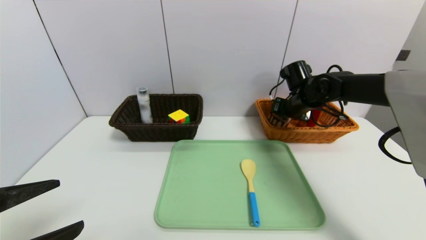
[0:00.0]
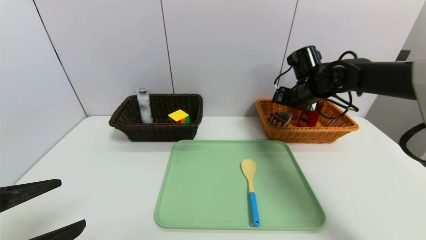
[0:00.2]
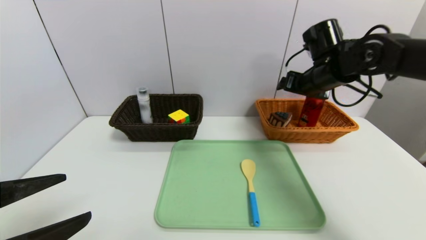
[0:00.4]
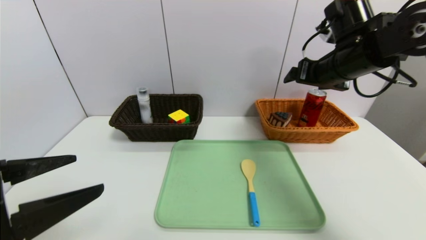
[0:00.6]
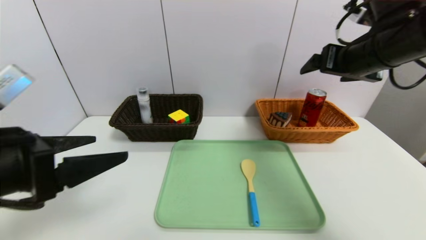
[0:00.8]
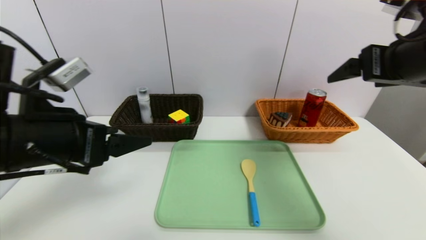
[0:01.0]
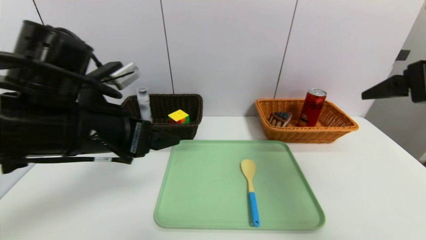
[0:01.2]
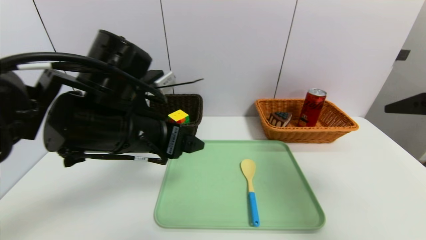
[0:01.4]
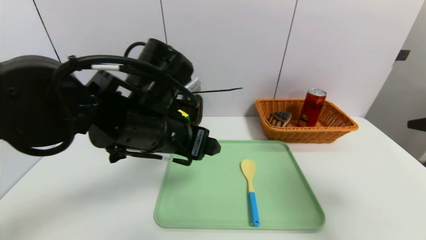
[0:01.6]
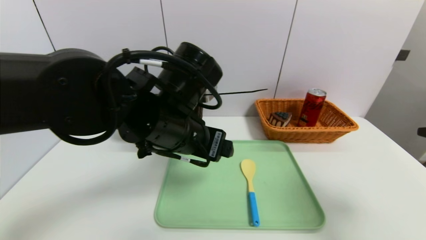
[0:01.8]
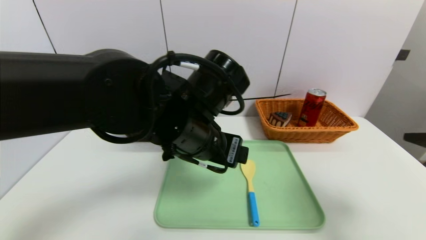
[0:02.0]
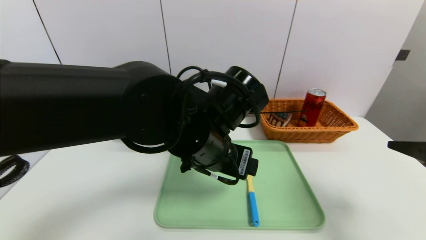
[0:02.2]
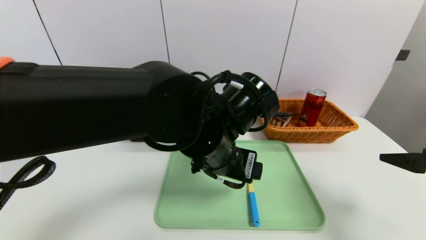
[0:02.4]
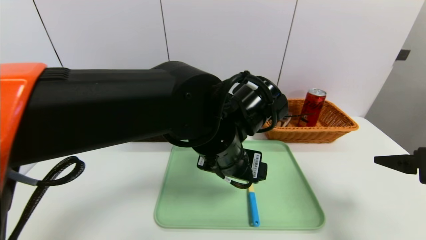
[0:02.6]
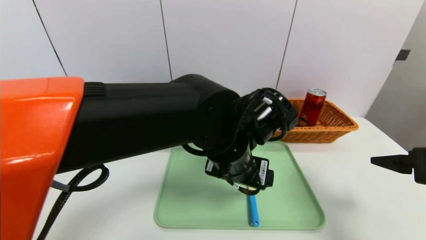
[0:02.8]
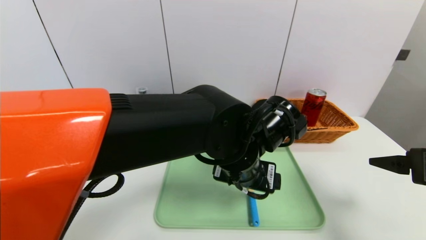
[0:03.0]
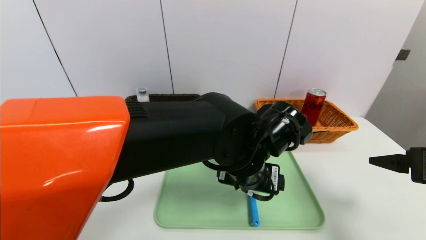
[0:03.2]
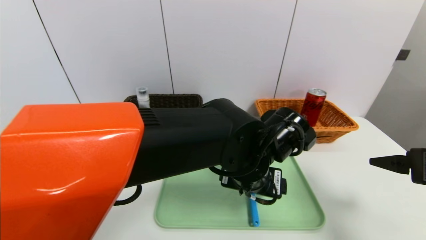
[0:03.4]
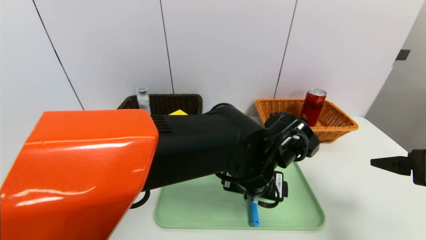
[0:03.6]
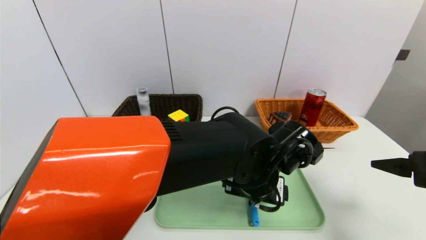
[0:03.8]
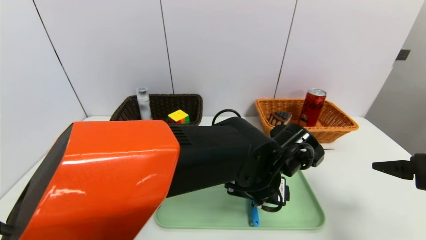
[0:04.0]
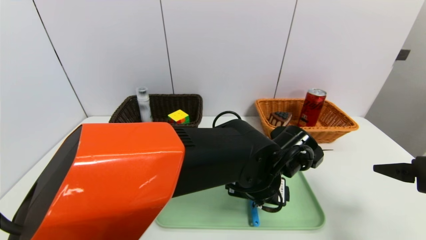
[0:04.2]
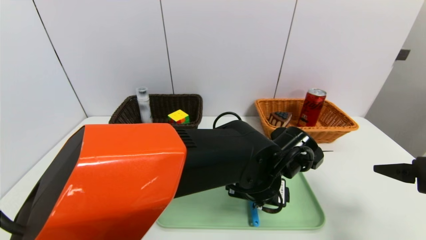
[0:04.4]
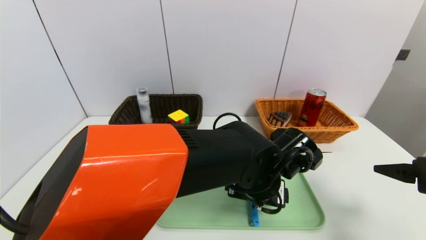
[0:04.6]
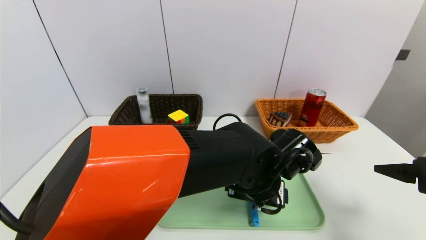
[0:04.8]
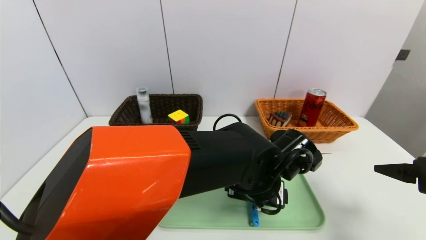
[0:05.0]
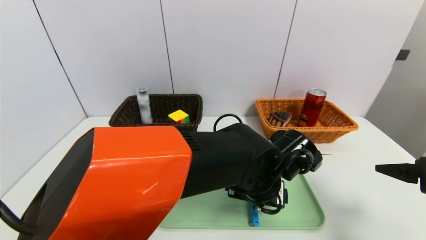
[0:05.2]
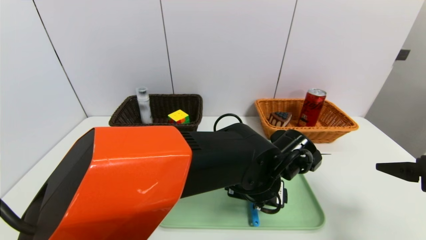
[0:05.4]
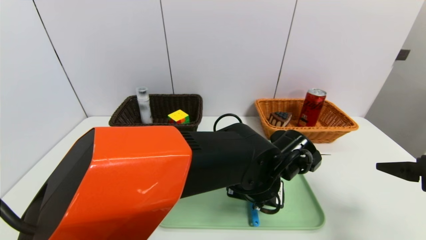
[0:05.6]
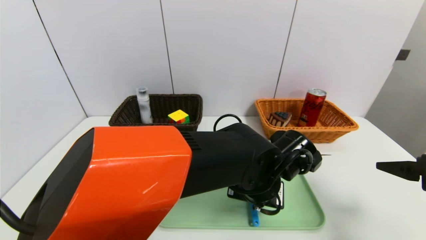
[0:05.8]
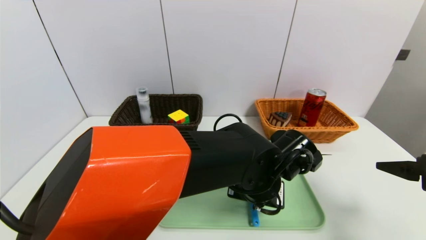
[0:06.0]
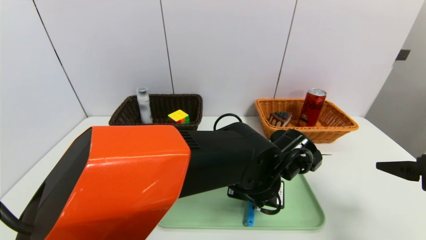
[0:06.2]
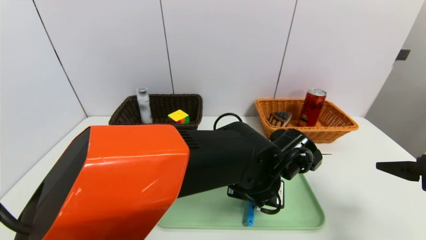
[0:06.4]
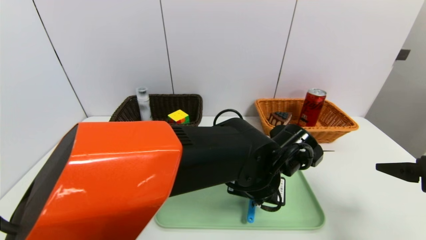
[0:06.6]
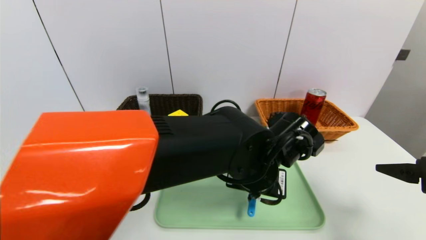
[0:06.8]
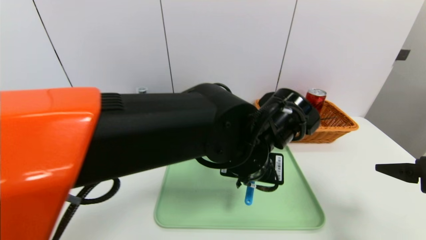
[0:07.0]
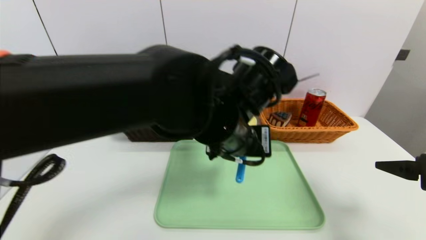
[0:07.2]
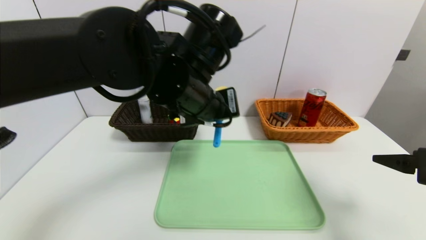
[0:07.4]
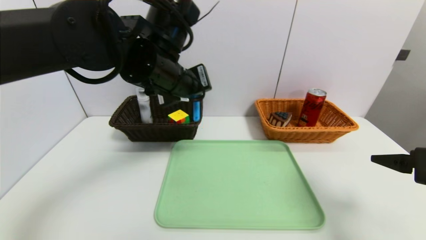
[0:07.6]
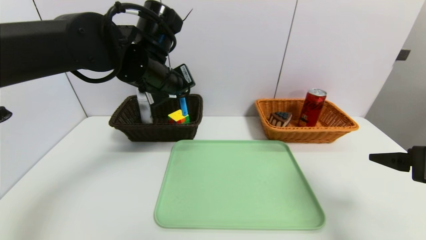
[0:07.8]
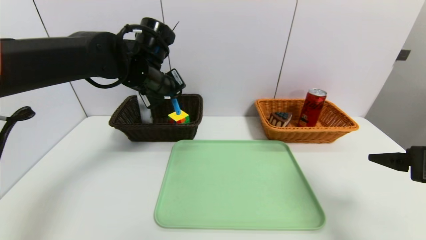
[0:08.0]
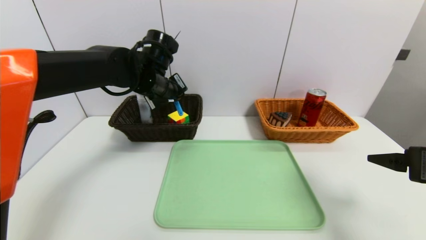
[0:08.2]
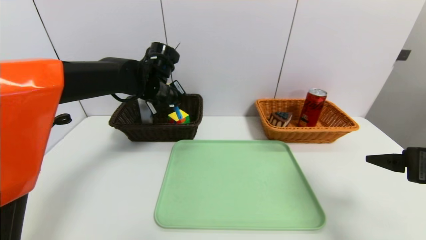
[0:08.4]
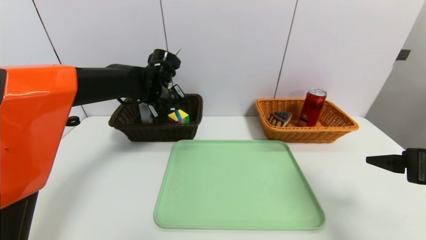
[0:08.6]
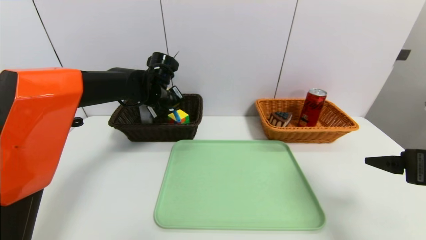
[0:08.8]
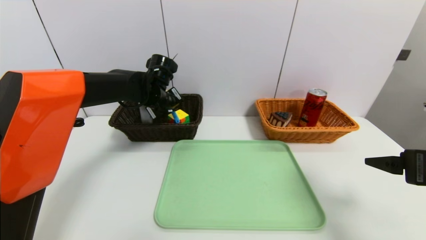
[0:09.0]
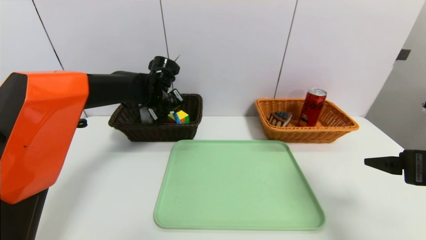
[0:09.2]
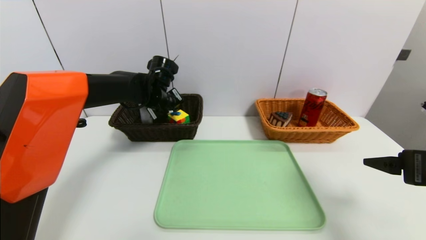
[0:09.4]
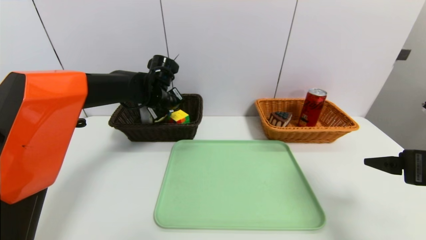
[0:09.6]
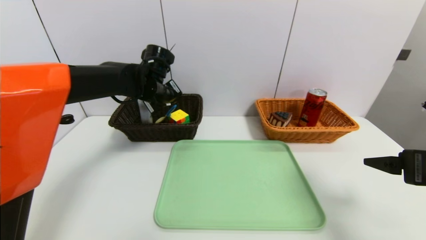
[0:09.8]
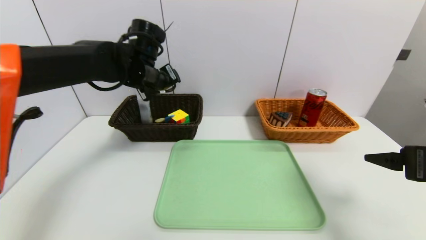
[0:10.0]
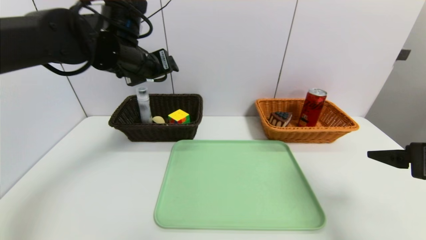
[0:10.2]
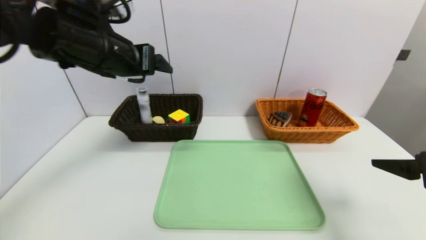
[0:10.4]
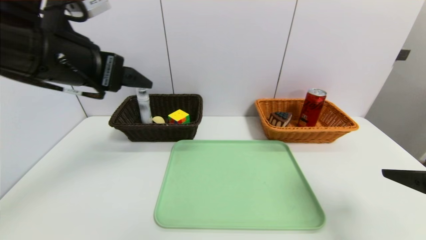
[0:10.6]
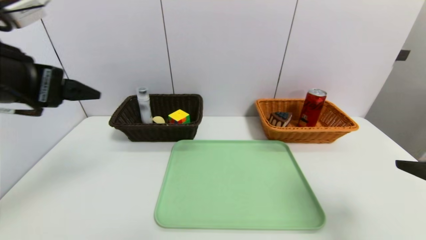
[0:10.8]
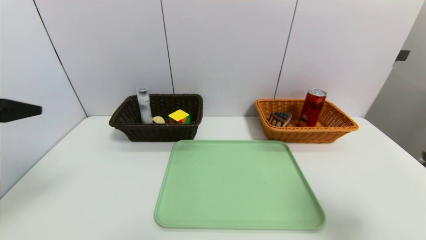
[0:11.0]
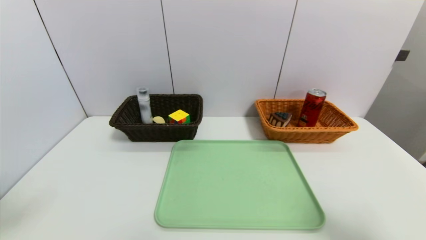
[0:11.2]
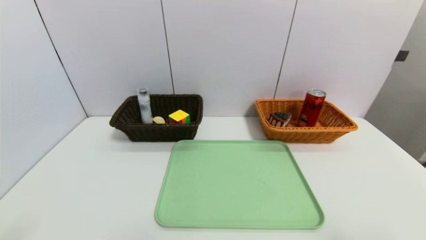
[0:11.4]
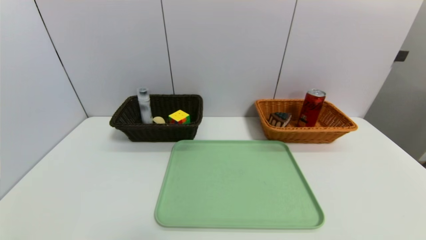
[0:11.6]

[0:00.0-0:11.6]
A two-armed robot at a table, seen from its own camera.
Task of the whole recording: place the food in the right basket with the right gripper, and place the non food items in the left basket with the left gripper.
Step, 0:00.4 to 0:09.8: Grasp the spoon and put it in the left basket.
0:00.0 to 0:01.4: The right gripper goes some 35 cm backward and upward, while the left gripper travels forward and to the right by about 20 cm.
0:01.4 to 0:02.8: The right gripper travels downward by some 10 cm. The left gripper goes some 15 cm to the right.
0:02.8 to 0:04.4: The left gripper moves downward, about 5 cm.
0:04.4 to 0:05.8: The left gripper closes.
0:05.8 to 0:07.2: The left gripper heads upward and to the left, covering roughly 15 cm, and closes up.
0:07.2 to 0:08.8: The left gripper goes about 25 cm forward and to the left.
0:08.8 to 0:10.2: The left gripper goes approximately 15 cm upward and backward, and opens its fingers.
0:10.2 to 0:11.6: The left gripper moves backward, approximately 40 cm; the right gripper shifts roughly 20 cm backward.

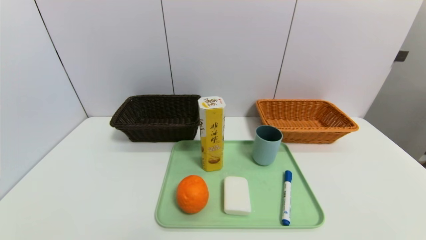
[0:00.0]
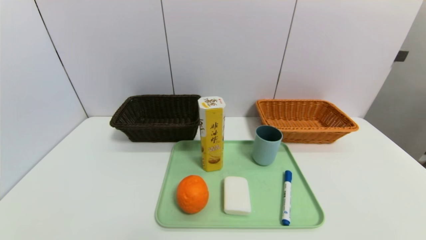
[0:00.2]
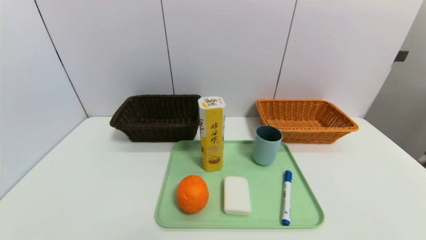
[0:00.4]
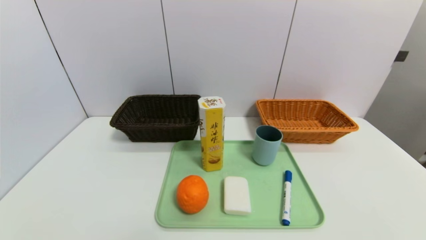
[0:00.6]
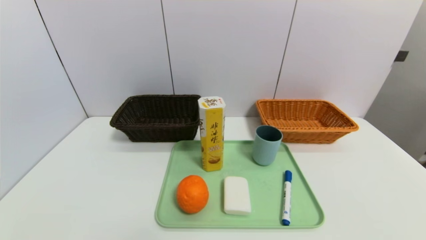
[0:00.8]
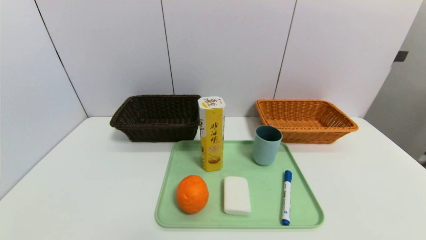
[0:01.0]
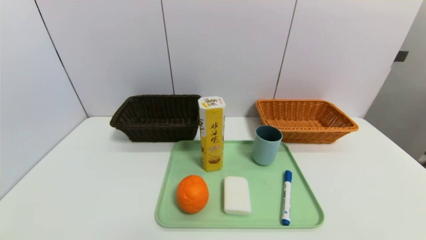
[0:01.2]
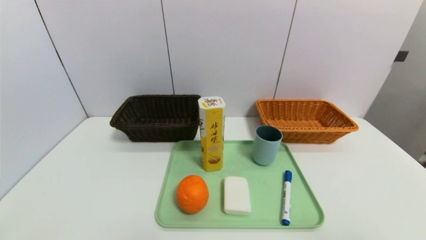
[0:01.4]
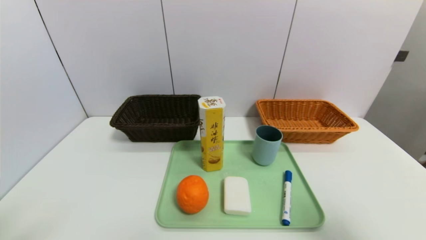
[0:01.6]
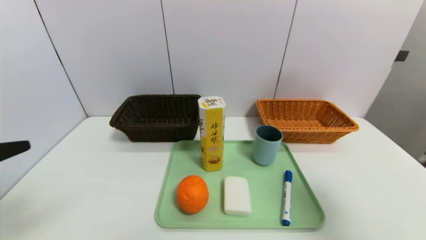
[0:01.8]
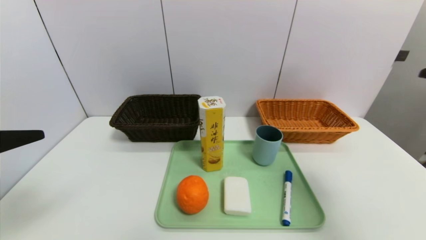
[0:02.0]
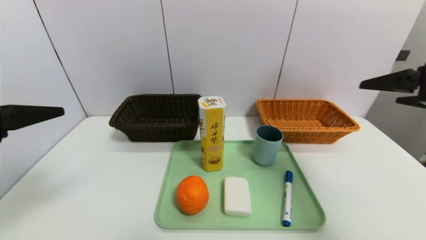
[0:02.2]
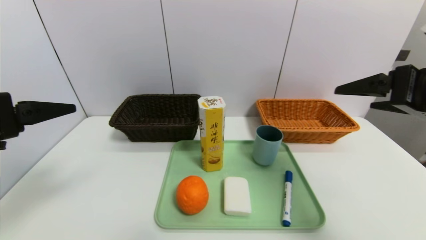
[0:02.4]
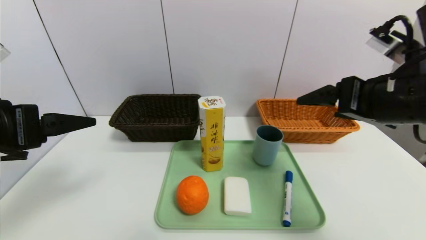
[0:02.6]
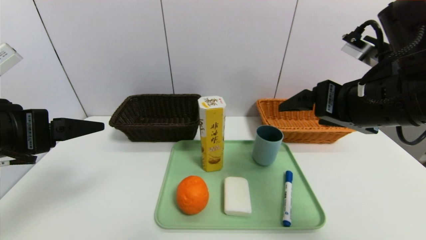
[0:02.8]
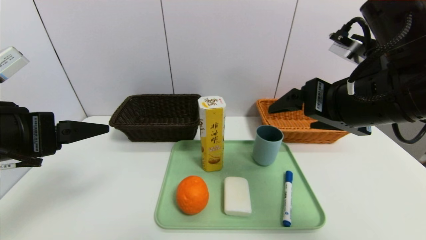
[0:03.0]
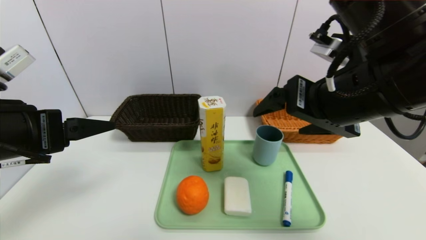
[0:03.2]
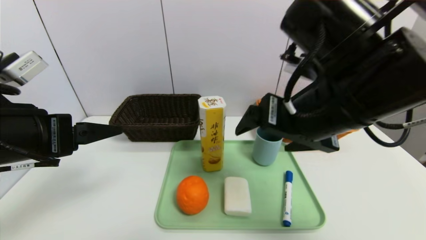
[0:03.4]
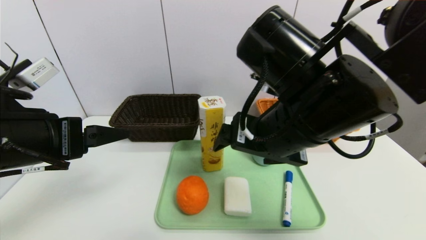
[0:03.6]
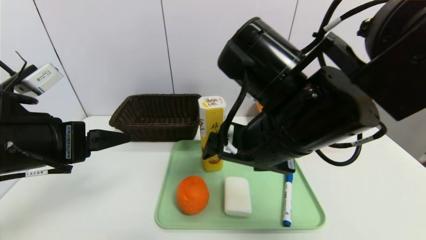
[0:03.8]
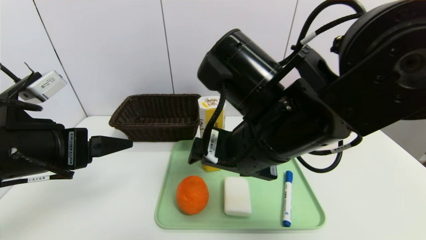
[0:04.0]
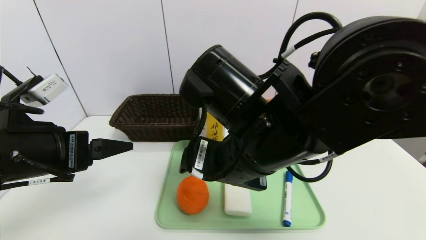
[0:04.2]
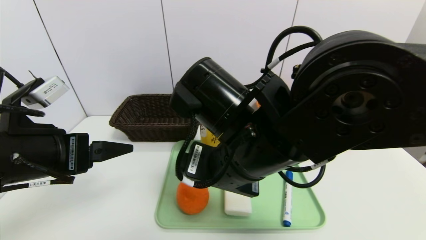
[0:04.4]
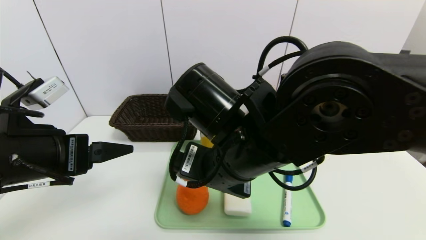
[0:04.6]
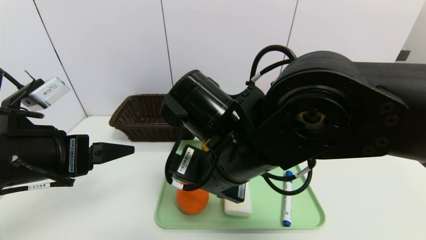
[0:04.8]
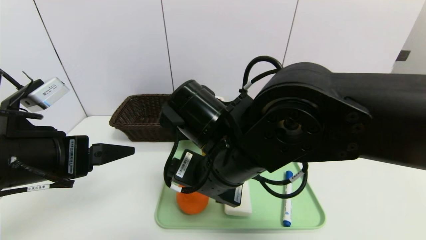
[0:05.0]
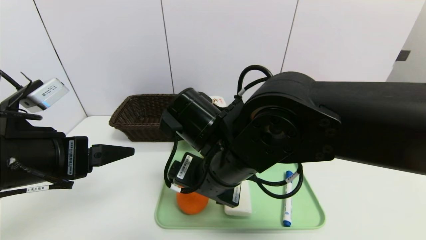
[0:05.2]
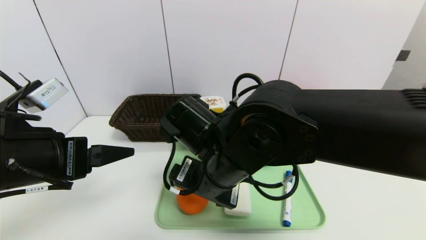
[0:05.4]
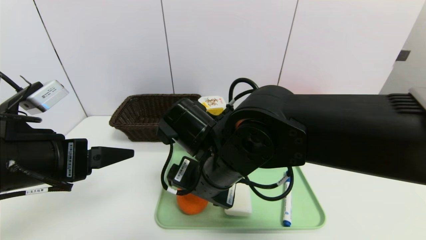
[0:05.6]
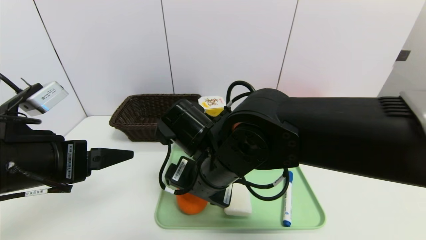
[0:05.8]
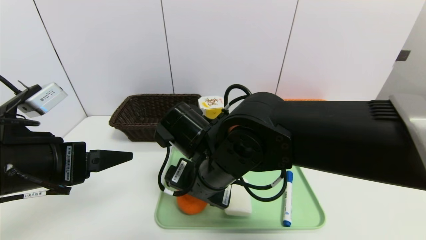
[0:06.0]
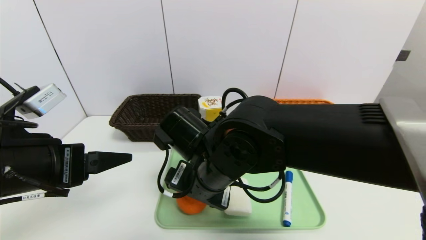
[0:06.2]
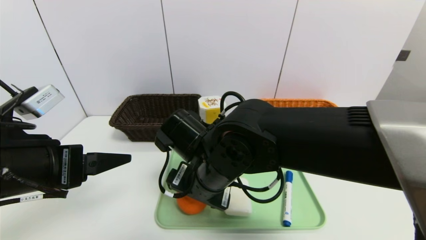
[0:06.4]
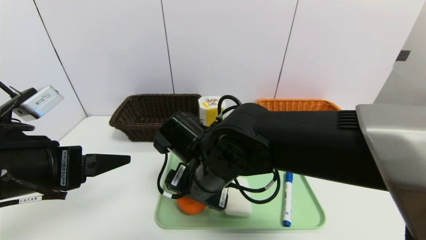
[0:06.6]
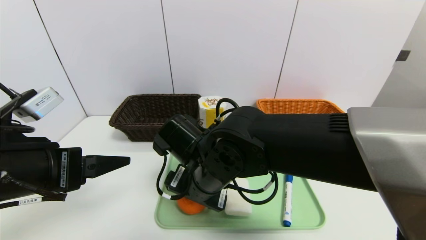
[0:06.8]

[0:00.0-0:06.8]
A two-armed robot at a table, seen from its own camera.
Task of the whole recording: place the food in the right basket with the right gripper, and place the non food items in the left basket with the left gripper.
0:01.4 to 0:02.8: The left gripper is displaced forward by about 15 cm; the right gripper moves forward and to the left, roughly 25 cm.
0:02.8 to 0:04.0: The right gripper moves to the left, some 15 cm.
0:04.0 to 0:05.4: The right gripper moves downward, about 5 cm.
